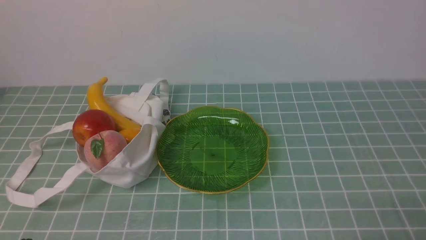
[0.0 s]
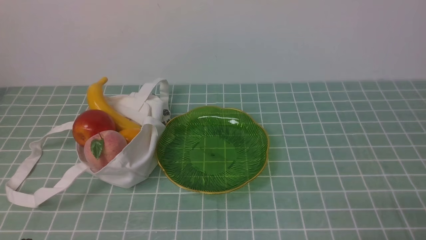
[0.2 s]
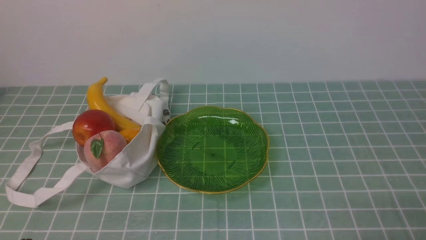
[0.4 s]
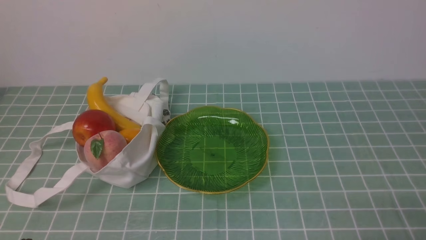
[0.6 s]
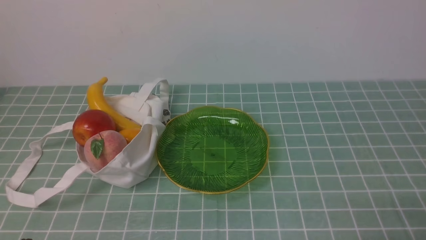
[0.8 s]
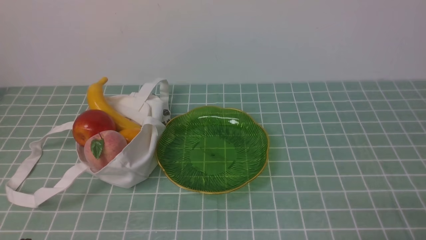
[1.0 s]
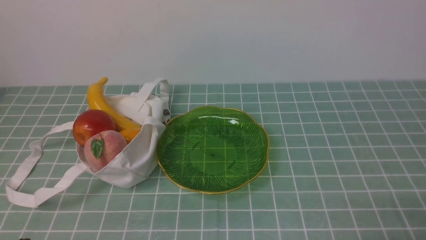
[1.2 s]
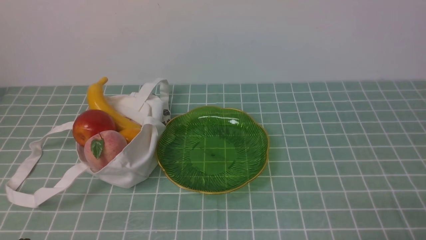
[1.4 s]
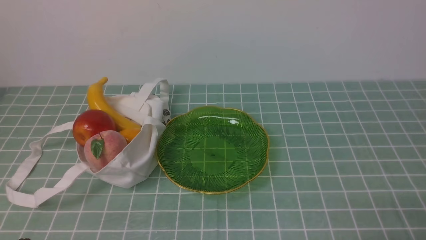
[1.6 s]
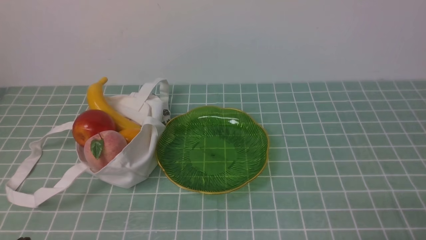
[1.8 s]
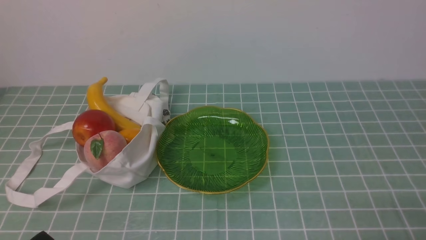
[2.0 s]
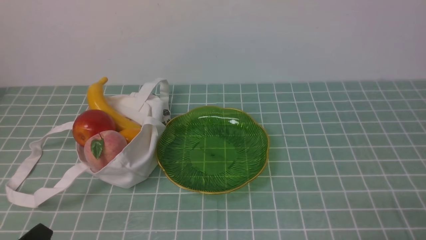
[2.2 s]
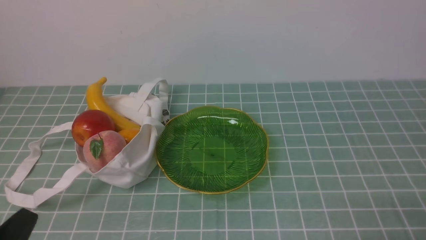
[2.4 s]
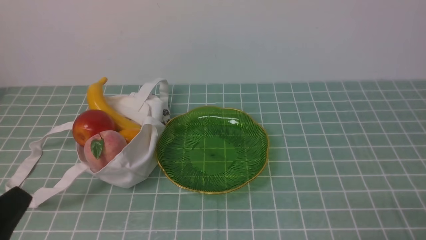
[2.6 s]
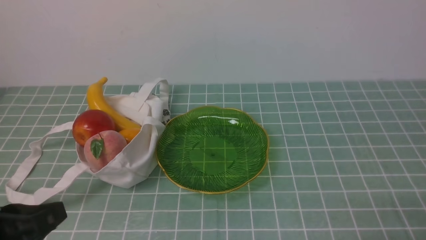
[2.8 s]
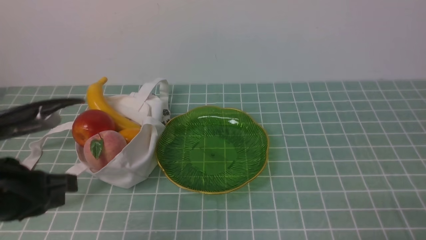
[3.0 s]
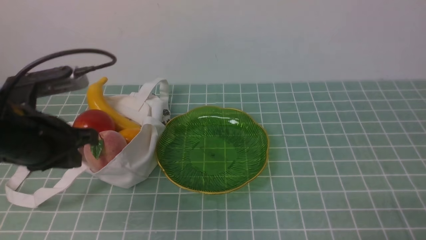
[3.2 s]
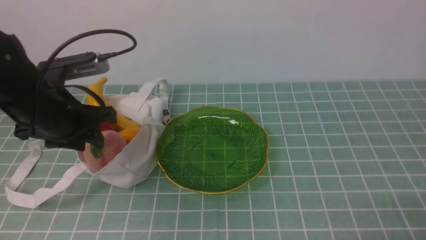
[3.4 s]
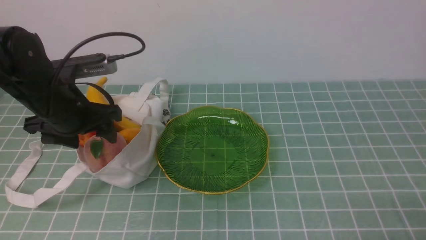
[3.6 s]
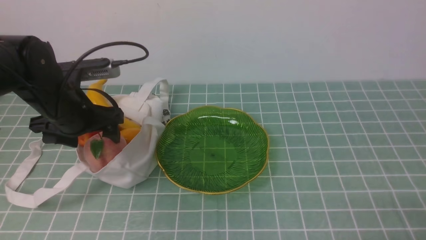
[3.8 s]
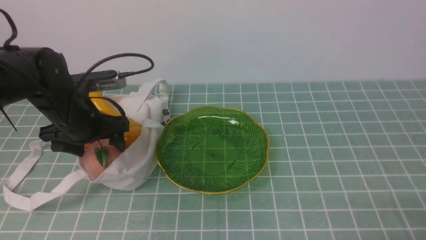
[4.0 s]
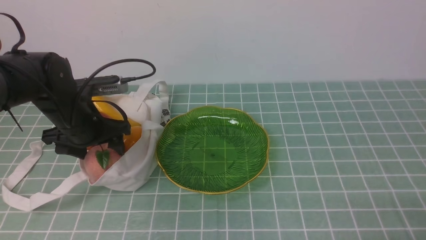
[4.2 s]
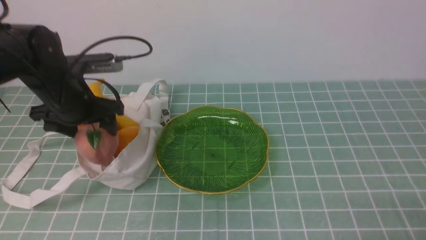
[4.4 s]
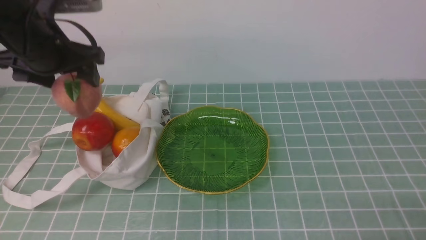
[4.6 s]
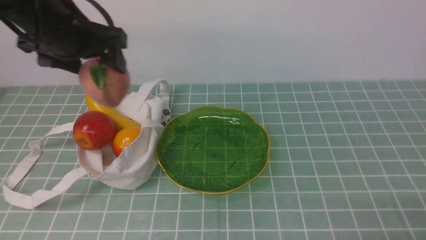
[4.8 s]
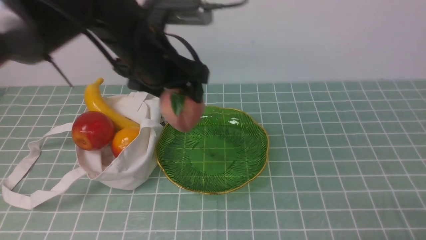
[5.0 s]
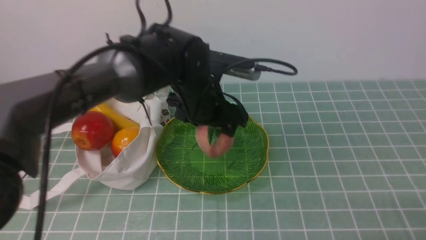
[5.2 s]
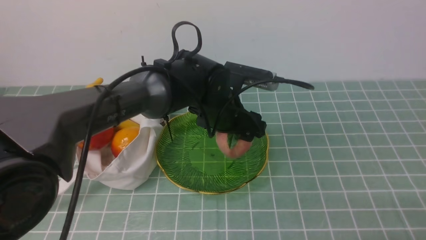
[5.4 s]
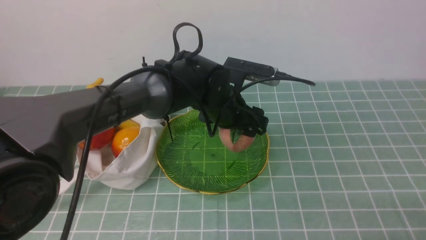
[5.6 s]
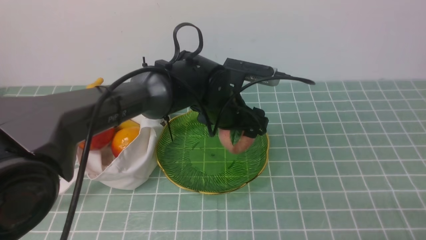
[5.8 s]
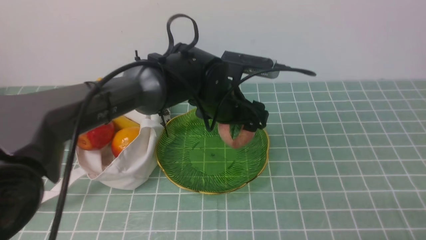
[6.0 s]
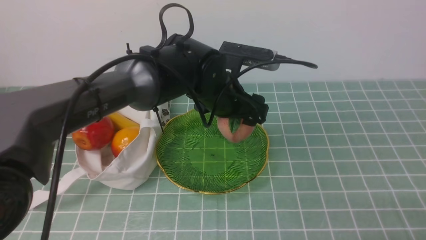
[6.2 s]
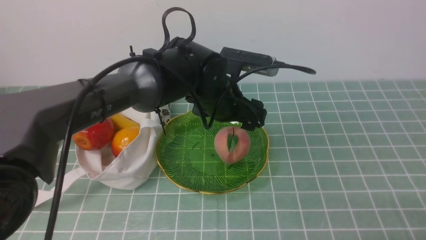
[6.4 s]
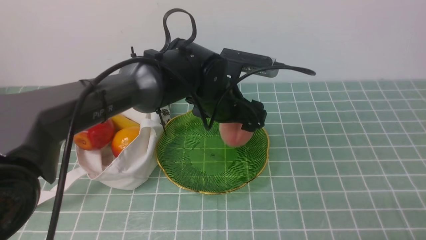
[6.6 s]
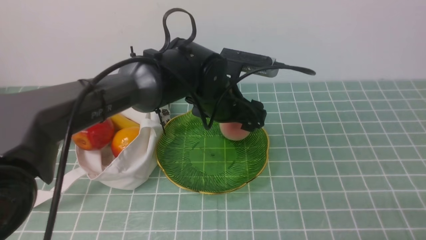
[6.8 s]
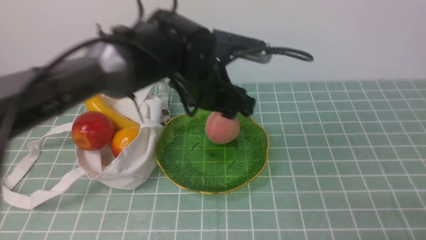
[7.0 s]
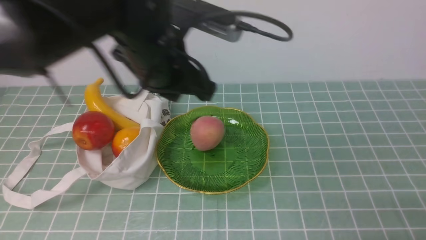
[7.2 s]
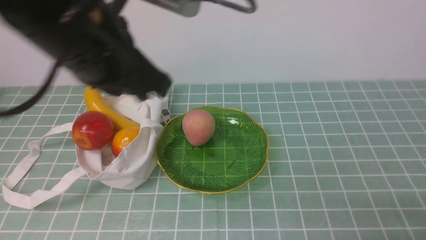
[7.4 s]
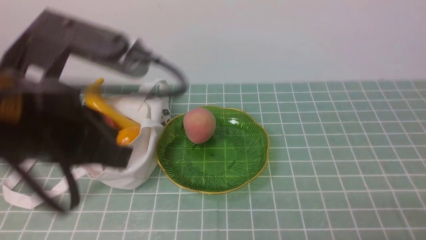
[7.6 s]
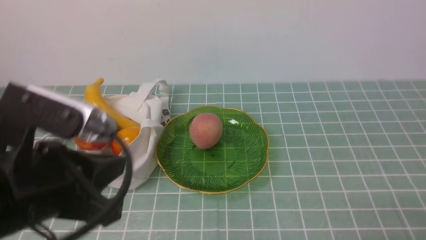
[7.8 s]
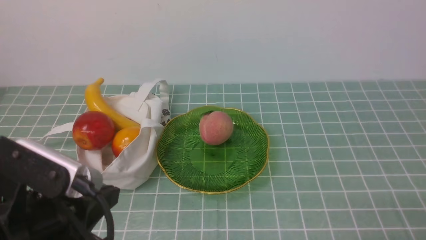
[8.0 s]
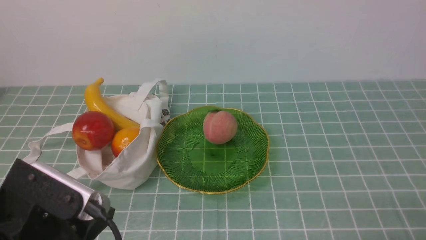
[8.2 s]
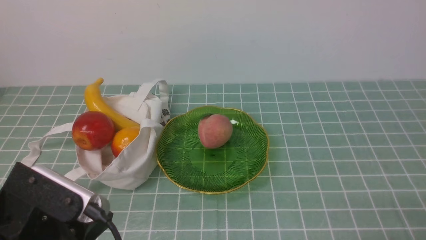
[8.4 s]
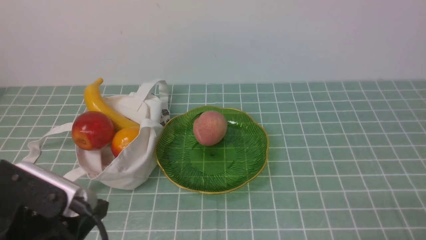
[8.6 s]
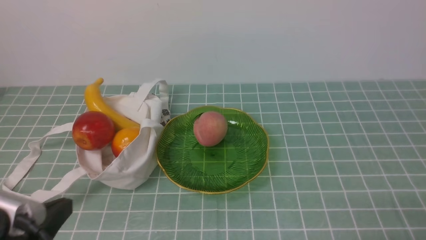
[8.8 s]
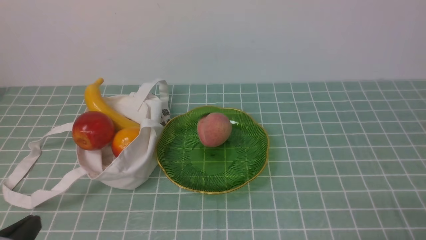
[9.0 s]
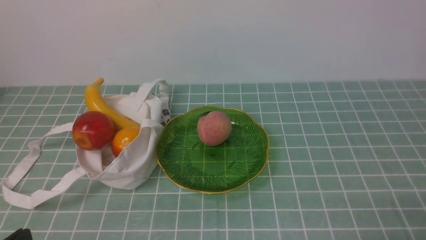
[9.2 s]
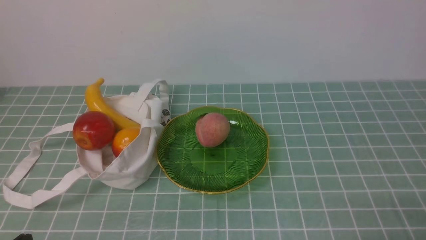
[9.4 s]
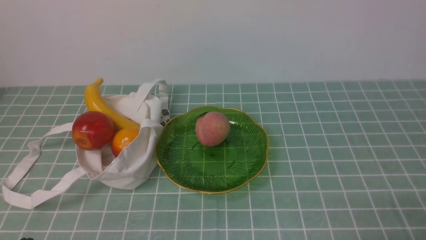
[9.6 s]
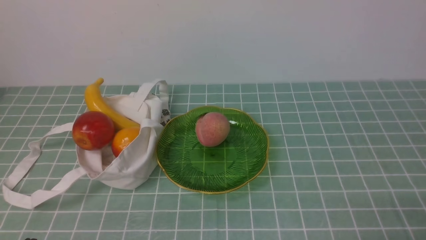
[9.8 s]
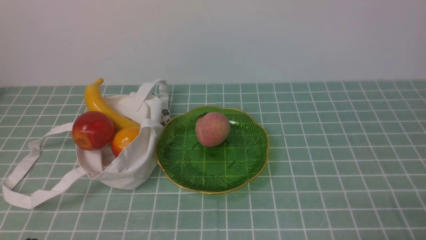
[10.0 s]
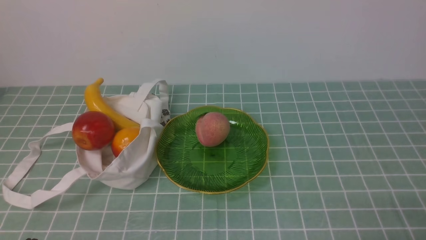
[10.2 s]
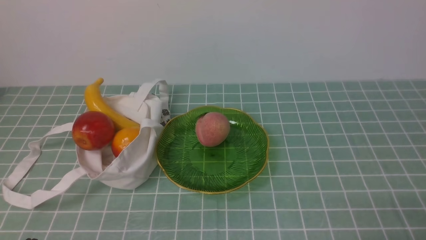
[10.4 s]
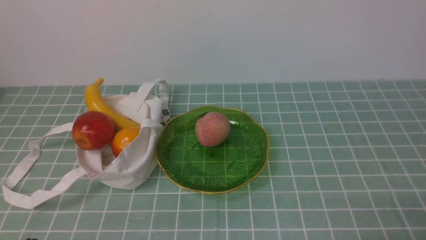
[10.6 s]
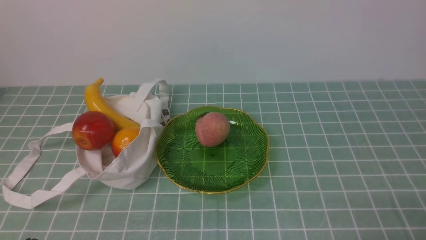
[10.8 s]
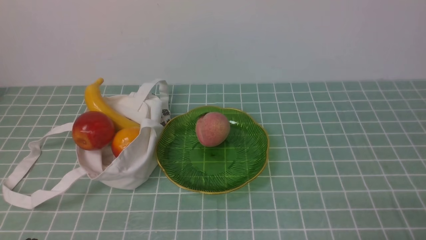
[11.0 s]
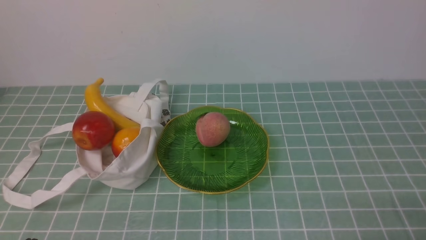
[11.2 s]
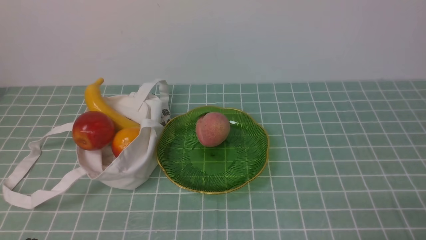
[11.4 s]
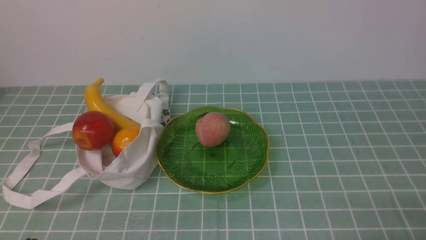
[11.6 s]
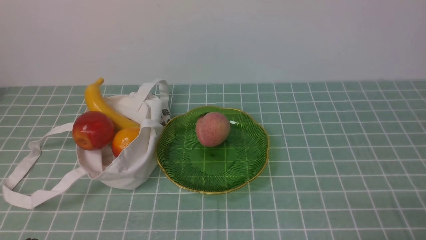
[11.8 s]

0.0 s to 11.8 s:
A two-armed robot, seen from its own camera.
Step, 0.0 to 4.2 s: use the left arm to grab a peach from the bag.
Step, 4.4 to 6.6 s: use the left arm to put the peach into the empty plate on the right.
0.0 to 1.4 s: The two grippers keep their place.
1.4 to 3.0 s: The left gripper shifts roughly 15 cm upward and forward.
3.0 to 4.4 s: The left gripper shifts approximately 20 cm forward, and opens up.
4.4 to 6.0 s: The left gripper goes approximately 25 cm to the right.
6.0 to 7.4 s: The left gripper goes about 25 cm upward, backward and to the left, and closes its fingers.
7.4 to 8.8 s: The left gripper travels downward, backward and to the left by roughly 25 cm.
8.8 to 10.4 s: The left gripper shifts some 5 cm downward.
10.4 to 11.8 s: Both grippers stay about where they are.
